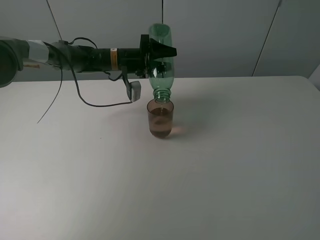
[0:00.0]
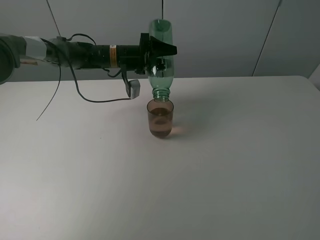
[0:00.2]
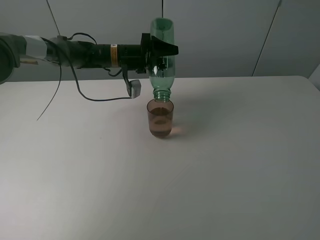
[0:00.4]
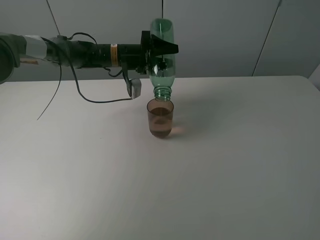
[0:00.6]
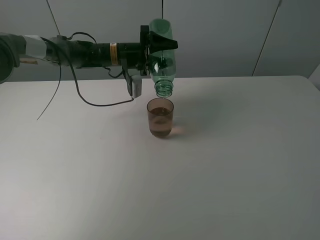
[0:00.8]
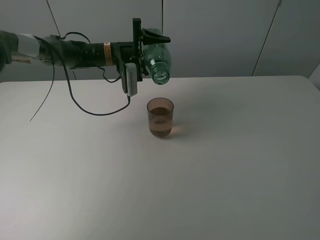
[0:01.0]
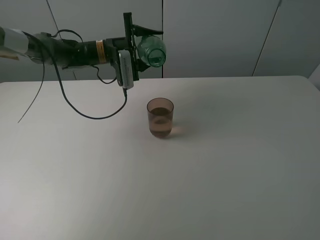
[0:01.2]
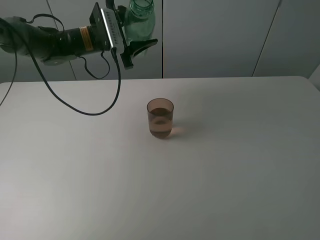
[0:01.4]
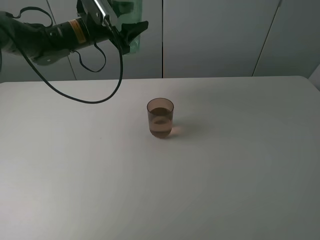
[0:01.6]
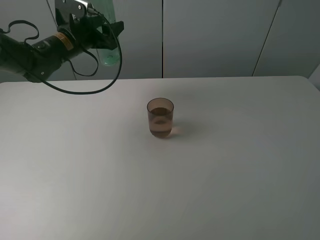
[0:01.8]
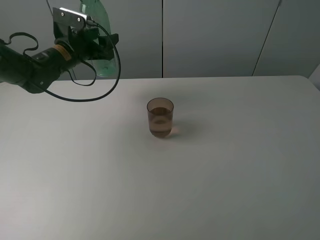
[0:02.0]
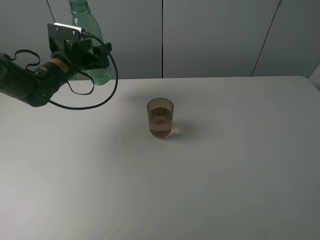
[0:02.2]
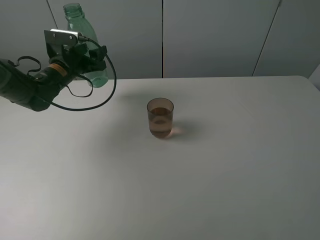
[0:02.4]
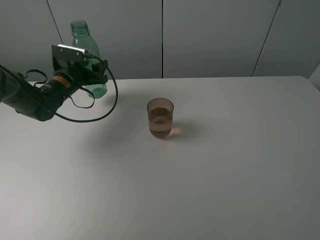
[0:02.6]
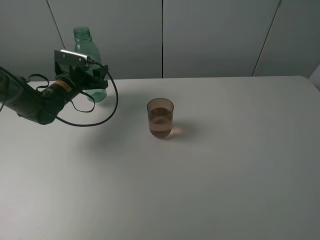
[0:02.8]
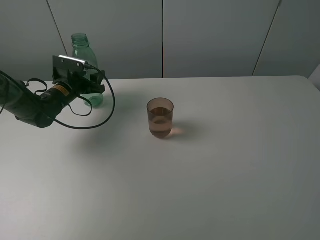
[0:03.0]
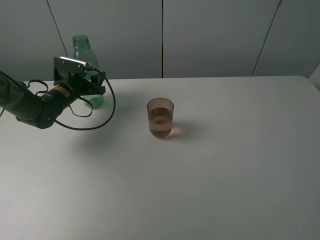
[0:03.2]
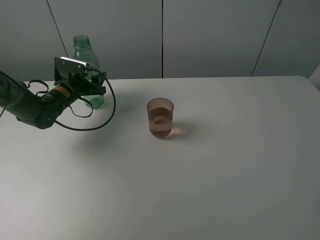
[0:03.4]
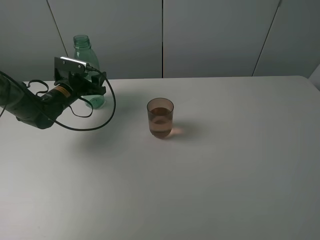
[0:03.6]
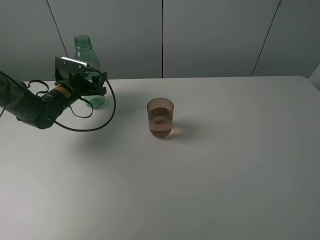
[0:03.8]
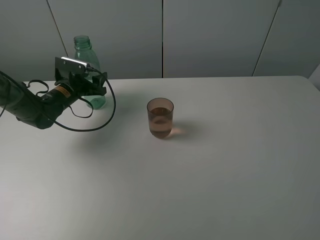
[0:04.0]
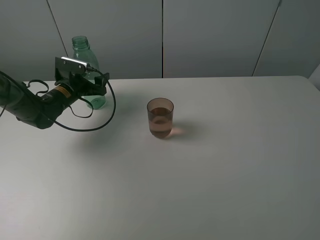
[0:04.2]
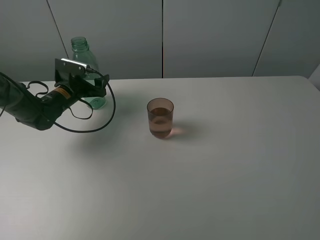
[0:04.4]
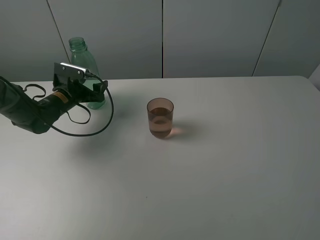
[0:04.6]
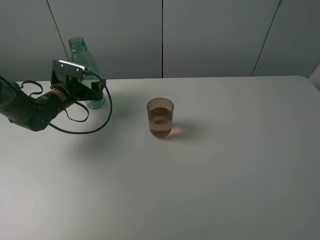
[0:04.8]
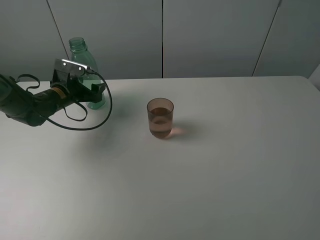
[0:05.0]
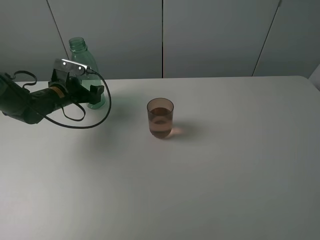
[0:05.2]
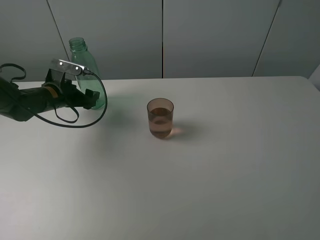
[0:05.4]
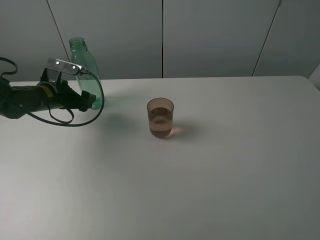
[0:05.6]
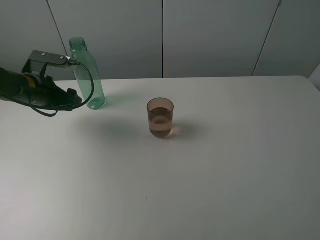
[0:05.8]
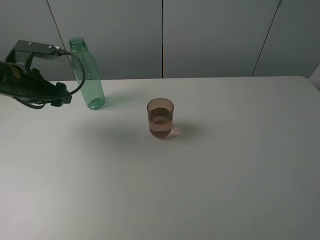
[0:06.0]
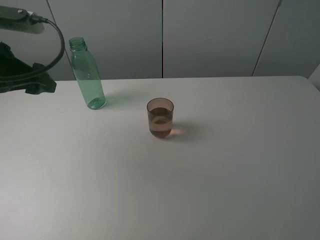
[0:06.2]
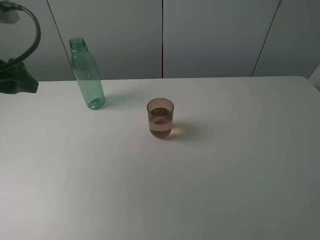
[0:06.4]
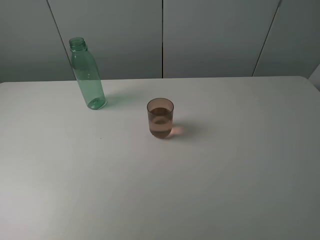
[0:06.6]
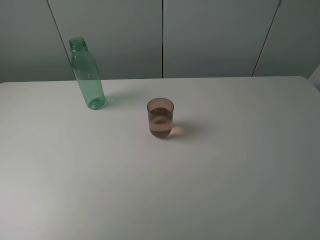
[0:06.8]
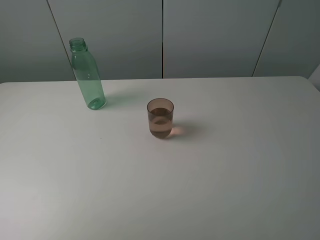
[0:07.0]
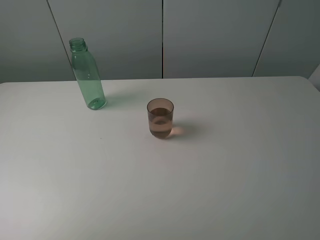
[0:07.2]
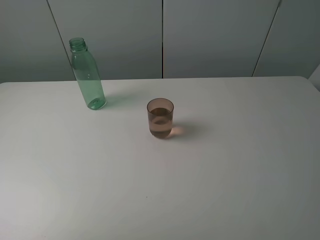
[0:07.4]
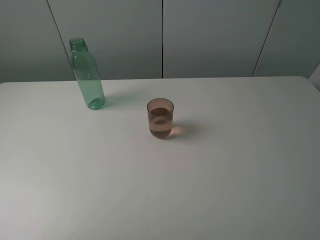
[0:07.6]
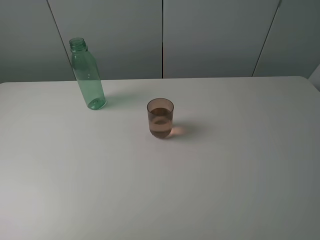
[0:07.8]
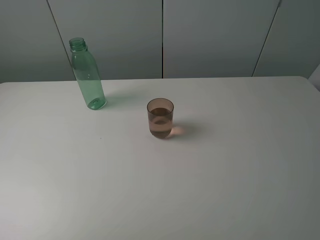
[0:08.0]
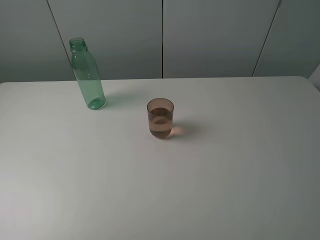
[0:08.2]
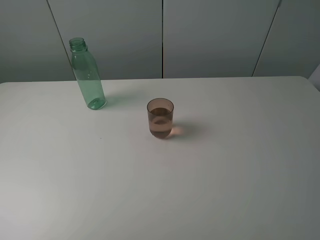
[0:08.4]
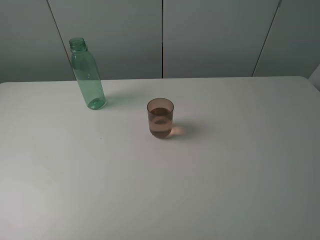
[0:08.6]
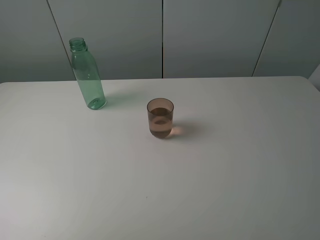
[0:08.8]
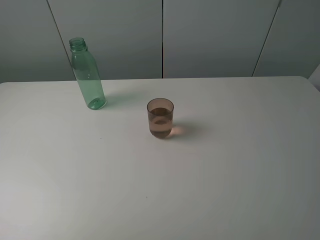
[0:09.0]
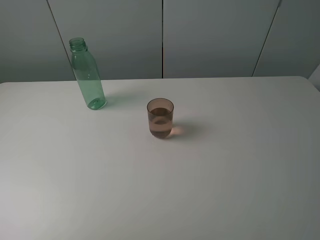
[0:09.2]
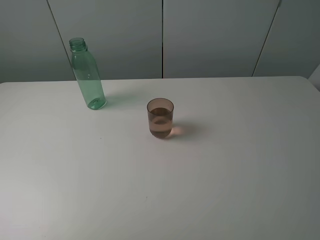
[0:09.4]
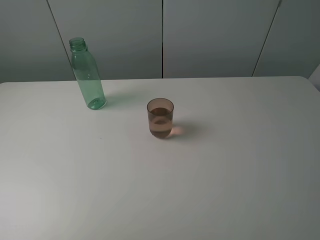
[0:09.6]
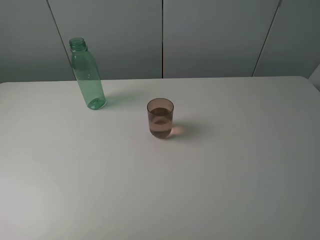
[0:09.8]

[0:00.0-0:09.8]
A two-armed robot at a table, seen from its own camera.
Task of the whole recording: pick up the bottle filled with water and pour it into the pink cup.
Step, 0:00.8 to 0:04.8: Place the green bottle with the left gripper.
0:00.0 to 0:01.4: The left gripper is displaced upward and to the left by some 10 cm.
0:01.4 to 0:02.8: The left gripper moves downward and to the left, some 15 cm.
0:02.8 to 0:04.2: The left gripper opens up.
0:04.2 to 0:05.6: The left gripper shifts about 5 cm backward.
0:05.6 to 0:07.0: The left gripper is displaced backward and upward by some 40 cm.
0:08.4 to 0:09.8: Both grippers stay put.
